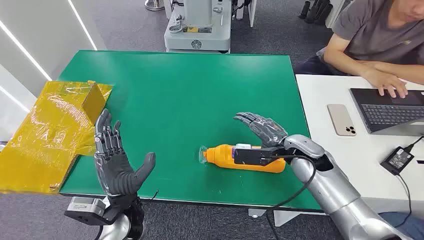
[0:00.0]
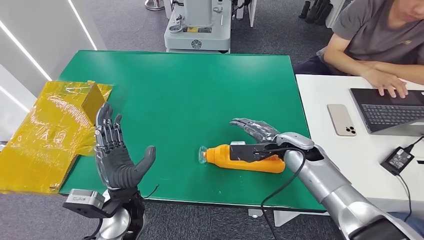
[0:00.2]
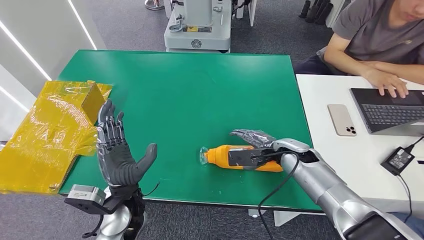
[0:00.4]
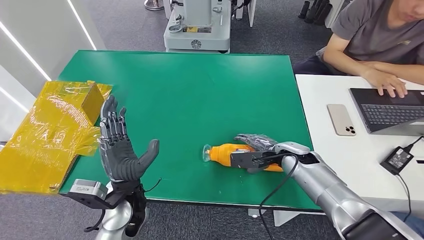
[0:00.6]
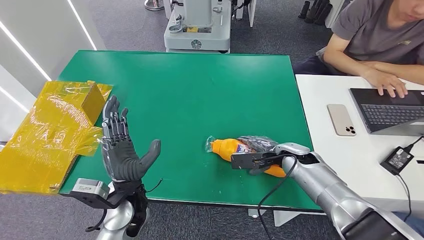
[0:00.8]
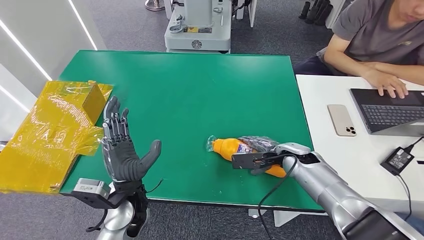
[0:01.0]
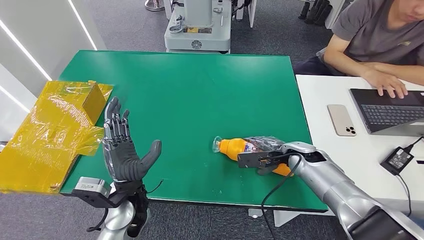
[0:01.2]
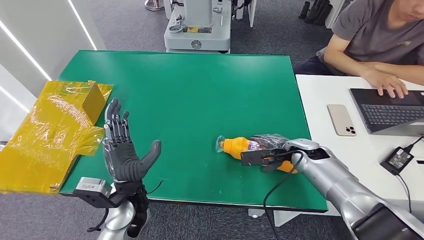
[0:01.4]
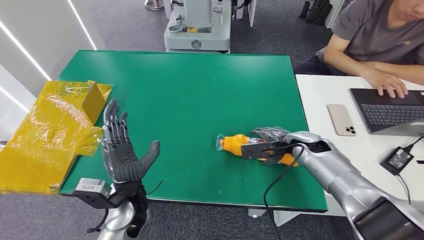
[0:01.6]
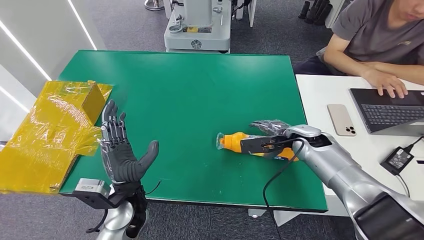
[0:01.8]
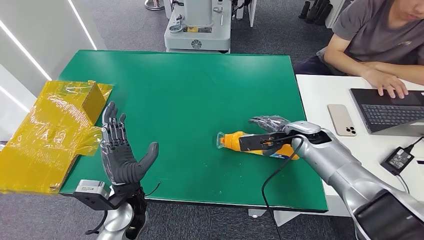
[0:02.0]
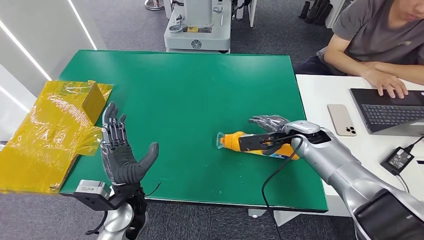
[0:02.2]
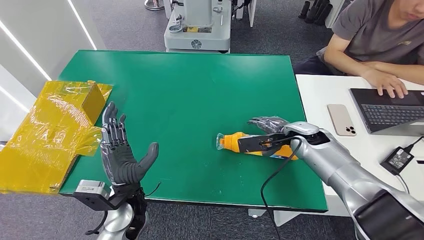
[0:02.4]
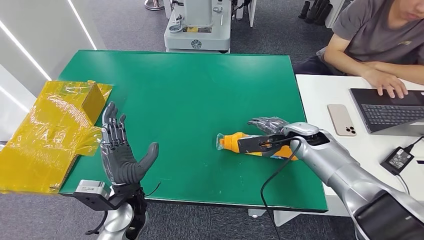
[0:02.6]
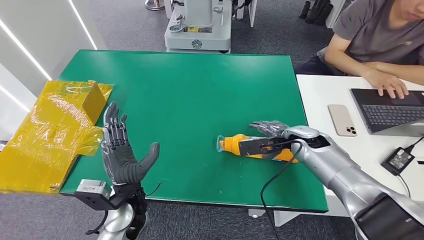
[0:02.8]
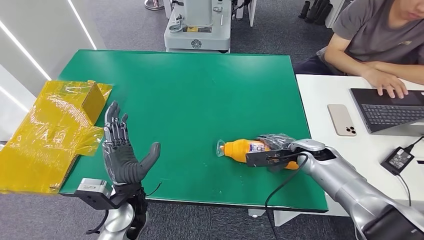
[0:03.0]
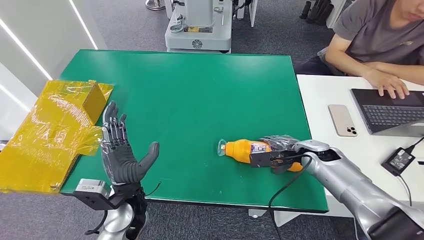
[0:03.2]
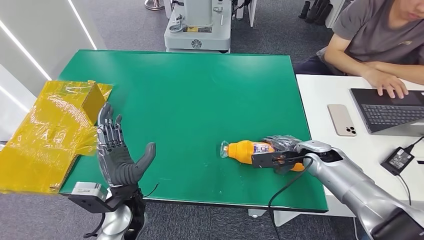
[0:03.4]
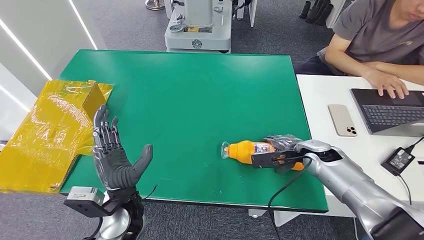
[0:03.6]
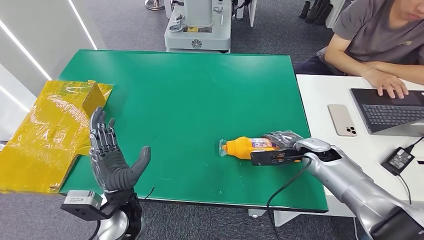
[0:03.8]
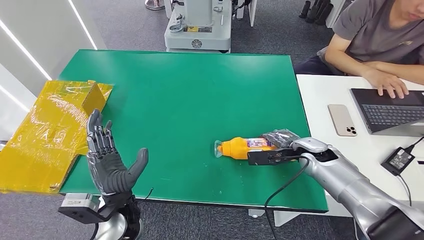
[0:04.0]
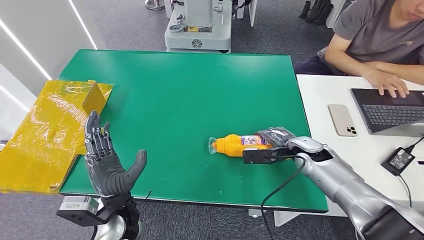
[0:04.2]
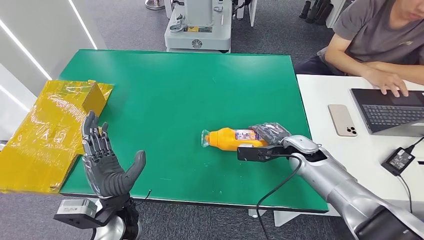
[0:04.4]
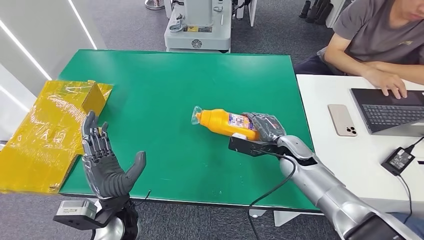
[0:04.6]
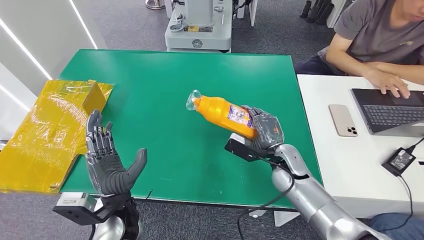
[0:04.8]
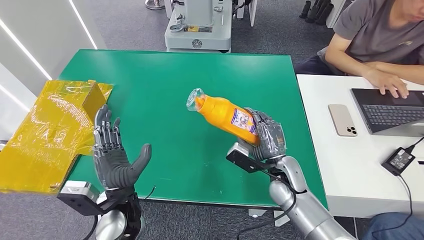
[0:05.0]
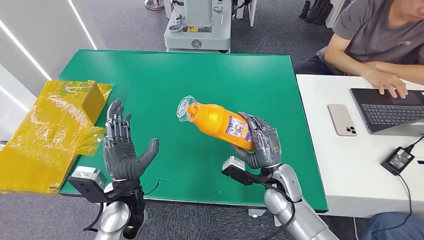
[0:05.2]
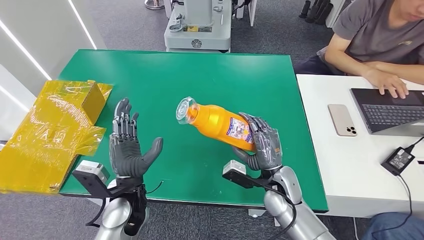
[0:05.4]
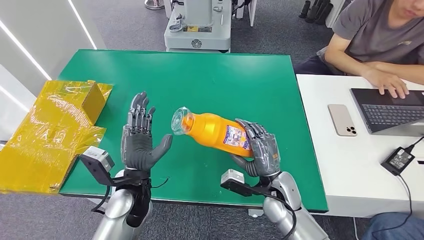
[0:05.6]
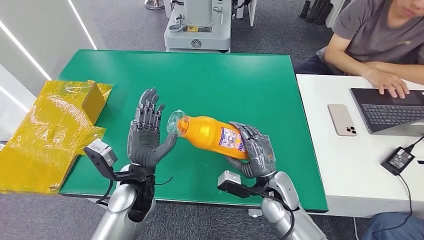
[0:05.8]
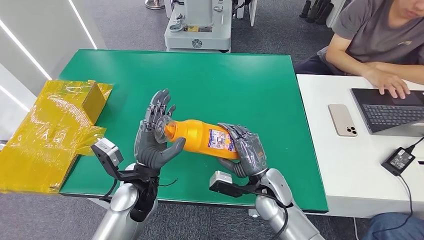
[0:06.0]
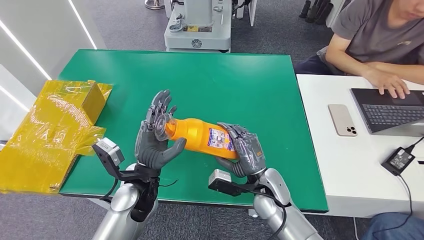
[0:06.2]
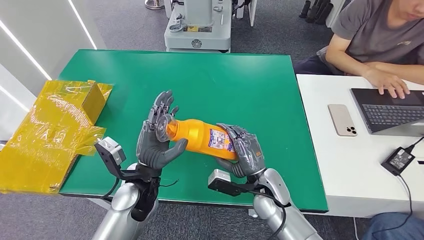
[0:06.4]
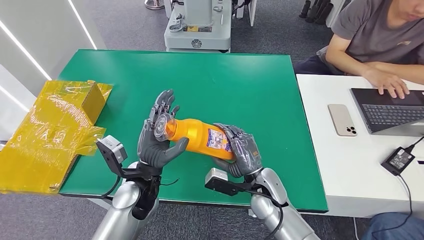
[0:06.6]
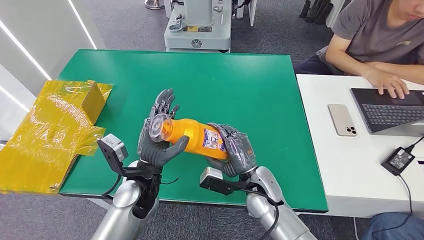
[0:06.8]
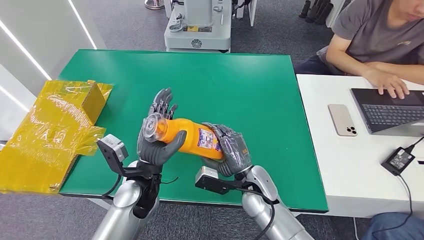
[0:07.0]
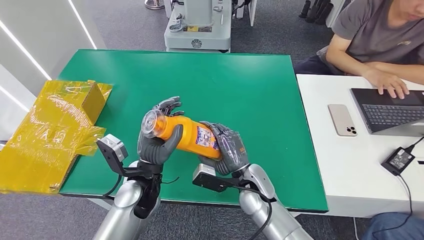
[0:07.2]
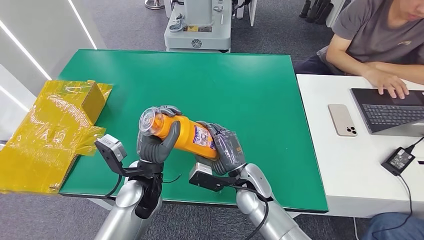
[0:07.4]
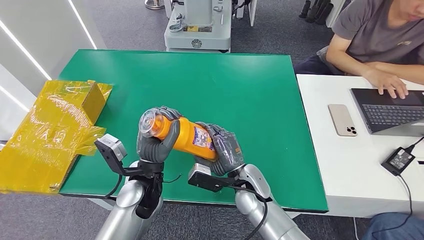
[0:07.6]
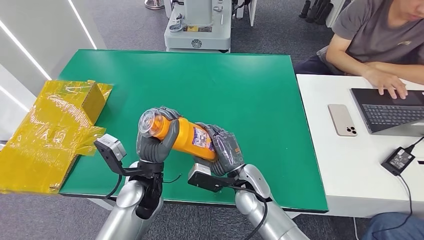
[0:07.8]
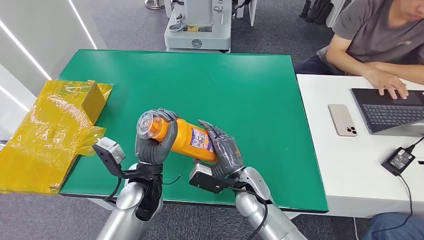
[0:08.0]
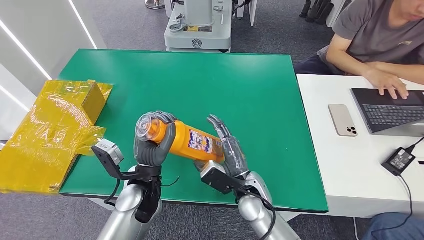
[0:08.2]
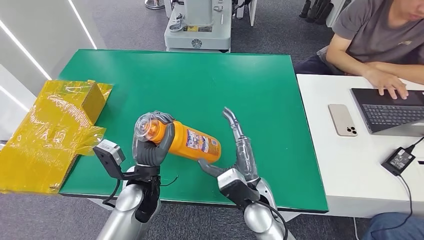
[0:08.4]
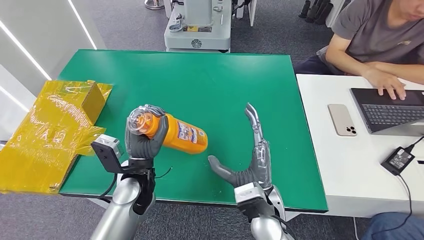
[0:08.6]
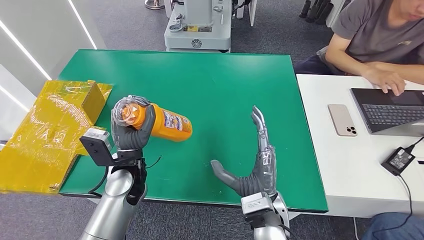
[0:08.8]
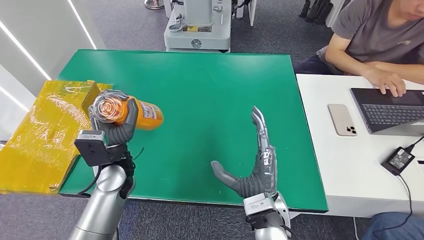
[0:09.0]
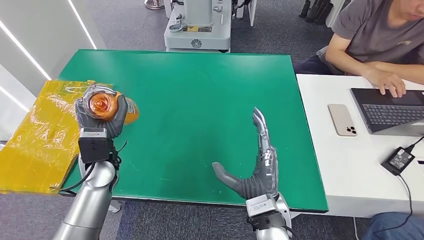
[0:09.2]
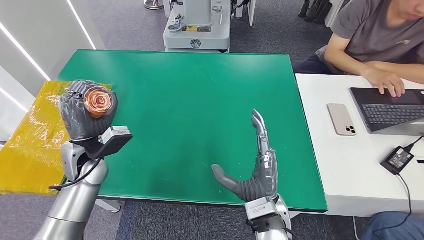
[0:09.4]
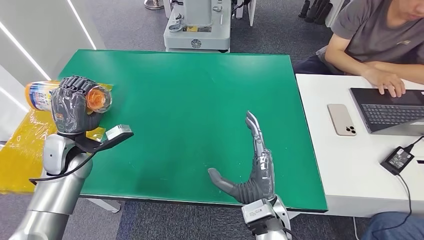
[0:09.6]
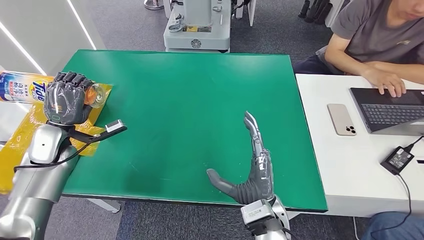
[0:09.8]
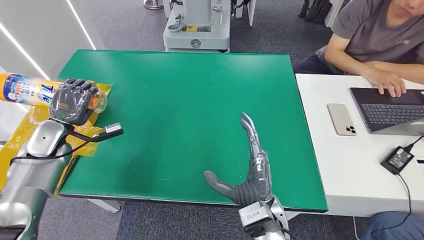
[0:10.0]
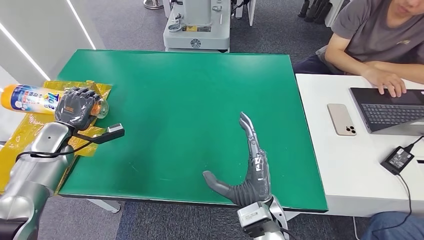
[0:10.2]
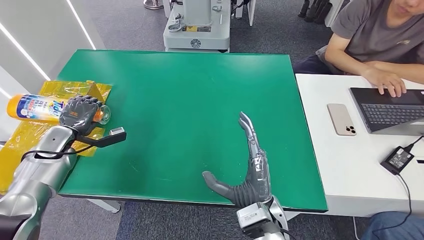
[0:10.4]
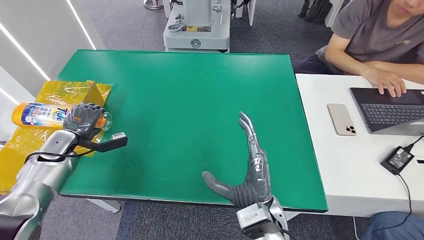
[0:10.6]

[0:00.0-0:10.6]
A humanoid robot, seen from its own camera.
Step, 0:00.0 to 0:04.8: Pick up the bottle from the table.
0:01.6 to 0:03.0: The hands make only small movements.
0:03.0 to 0:04.6: The right hand heads to the left, covering some 5 cm.
0:04.6 to 0:06.0: The left hand travels forward by roughly 5 cm, while the right hand moves backward and to the left, approximately 15 cm.
0:06.0 to 0:07.6: The right hand shifts some 5 cm to the left.
0:07.6 to 0:09.0: The left hand goes roughly 5 cm to the left; the right hand goes about 10 cm backward and upward.
0:09.0 to 0:10.6: The left hand travels to the left by approximately 25 cm.

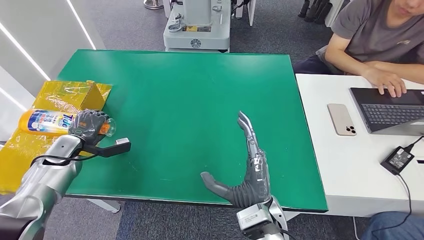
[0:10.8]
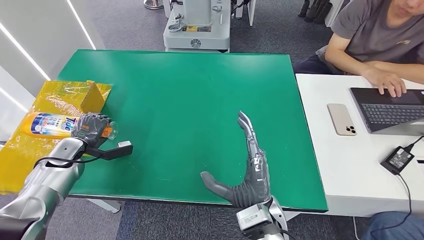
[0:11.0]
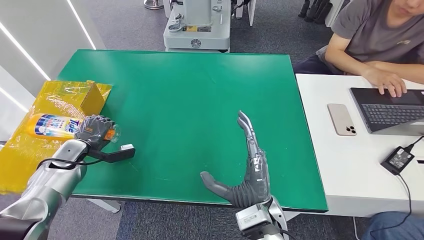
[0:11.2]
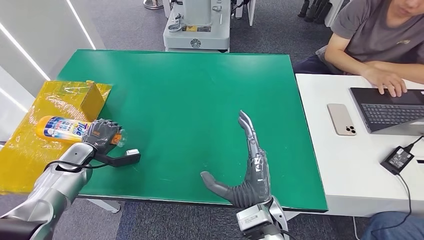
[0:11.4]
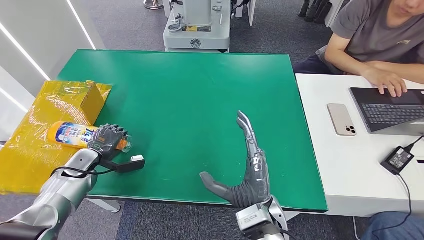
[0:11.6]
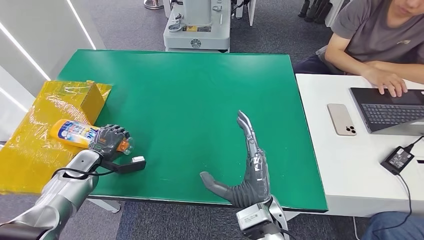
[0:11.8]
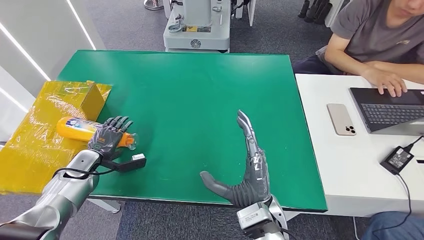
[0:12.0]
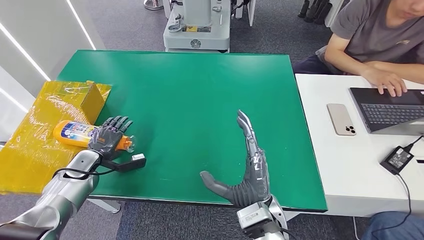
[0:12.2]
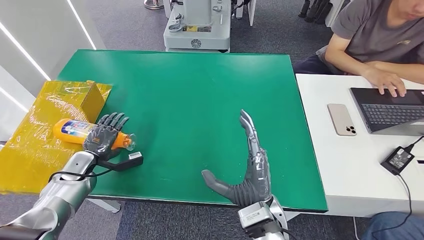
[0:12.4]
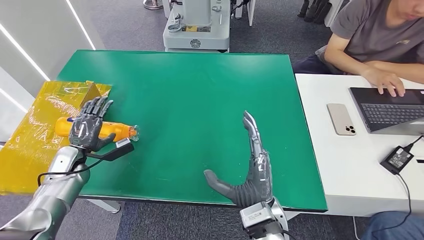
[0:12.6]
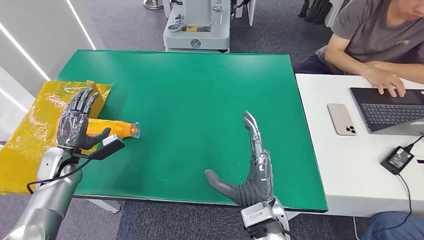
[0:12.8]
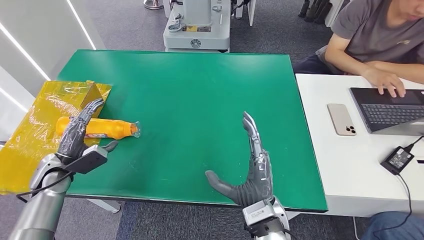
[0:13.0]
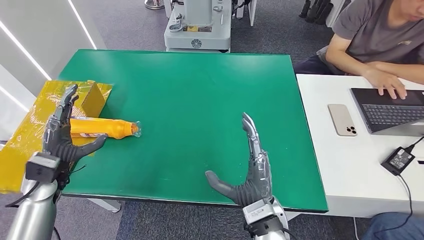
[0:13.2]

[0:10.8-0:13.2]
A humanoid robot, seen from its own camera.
Step, 0:10.8 to 0:13.2: Turn the bottle to the front side.
0:10.8 to 0:12.0: The left hand moves about 5 cm.
0:12.0 to 0:13.2: The left hand moves upward, roughly 10 cm.

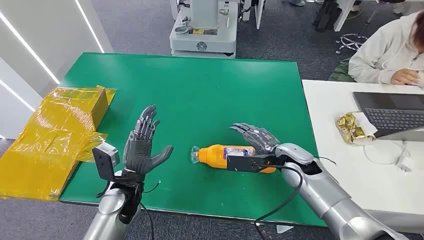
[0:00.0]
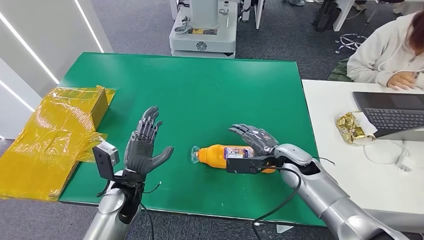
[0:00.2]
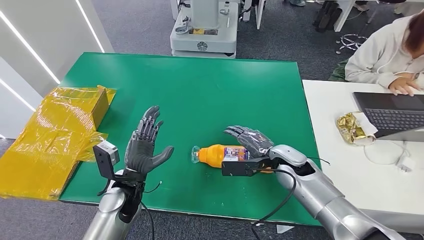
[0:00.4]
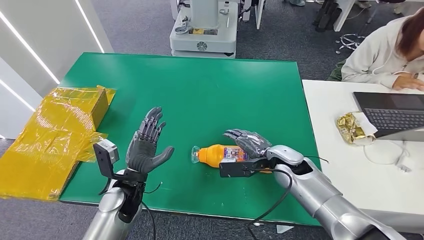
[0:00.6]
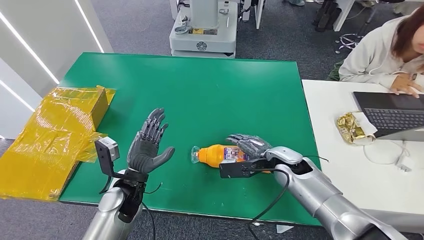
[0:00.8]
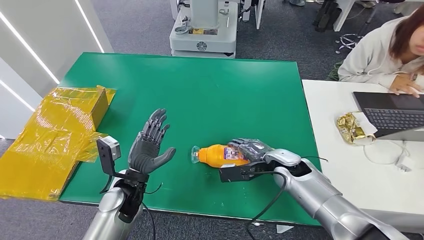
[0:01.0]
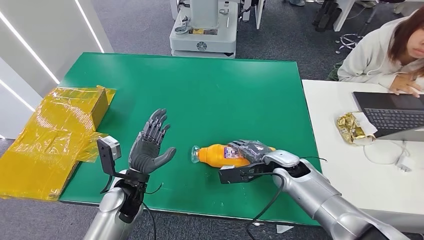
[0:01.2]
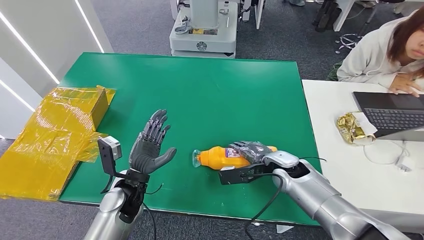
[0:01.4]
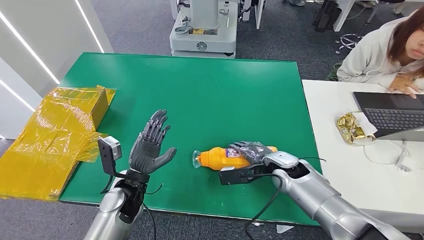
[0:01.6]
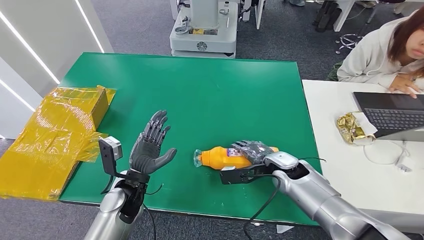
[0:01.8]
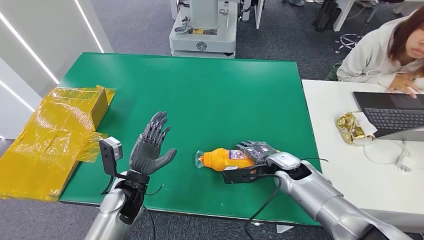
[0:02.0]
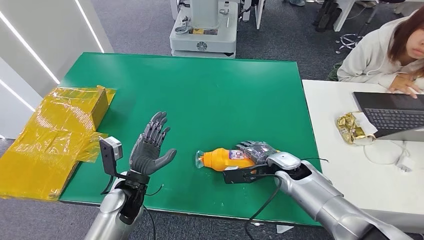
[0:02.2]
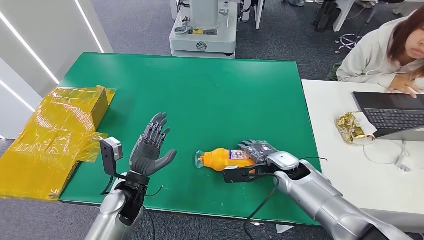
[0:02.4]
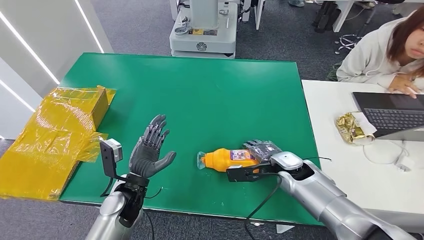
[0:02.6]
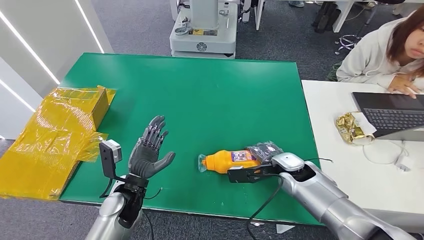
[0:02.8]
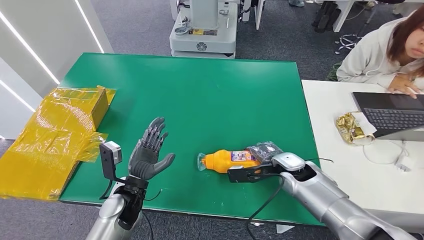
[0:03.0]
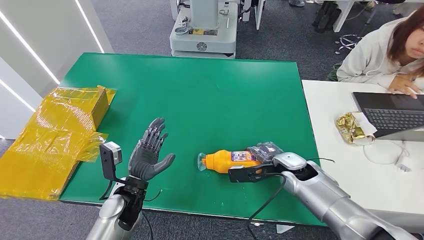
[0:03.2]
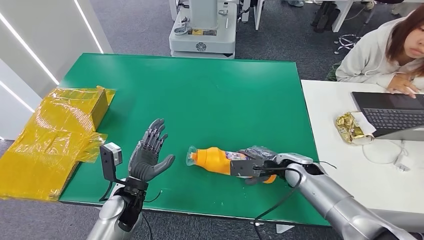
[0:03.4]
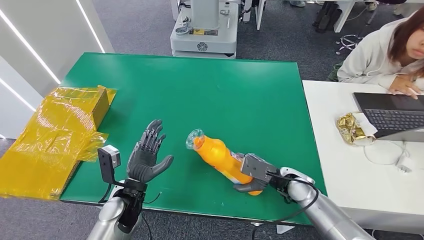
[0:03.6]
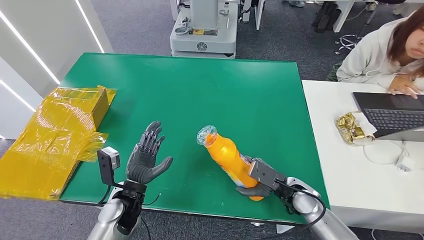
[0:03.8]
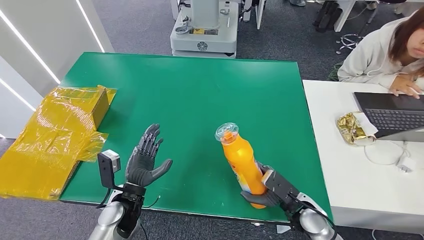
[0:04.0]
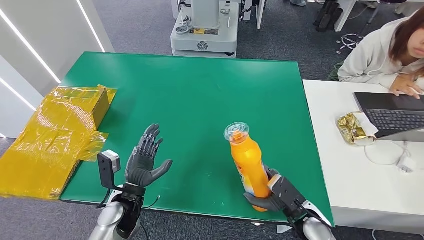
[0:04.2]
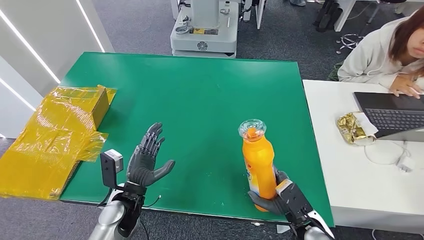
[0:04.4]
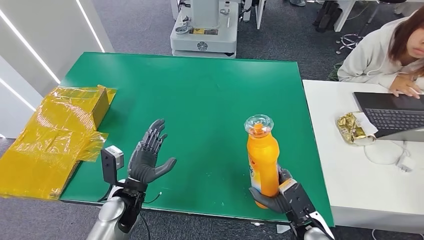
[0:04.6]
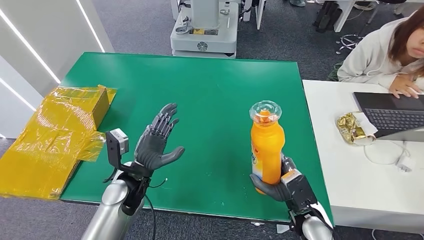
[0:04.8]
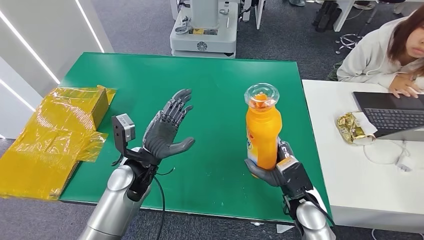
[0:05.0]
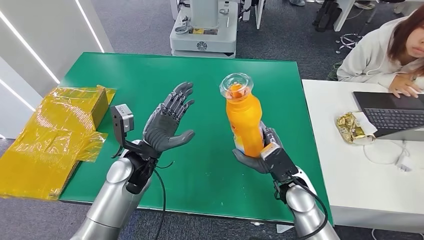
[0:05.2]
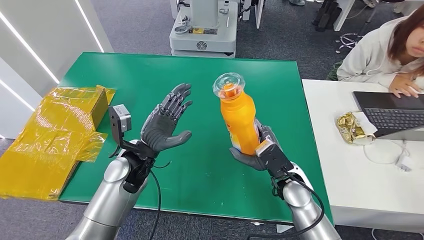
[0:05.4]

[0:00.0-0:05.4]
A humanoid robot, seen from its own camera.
0:01.4 to 0:02.8: There are only small adjustments of the hands.
0:02.8 to 0:04.0: The right hand moves backward and downward, about 15 cm.
0:04.0 to 0:05.4: The left hand moves upward and forward, about 10 cm; the right hand goes some 10 cm upward, to the left and forward.
